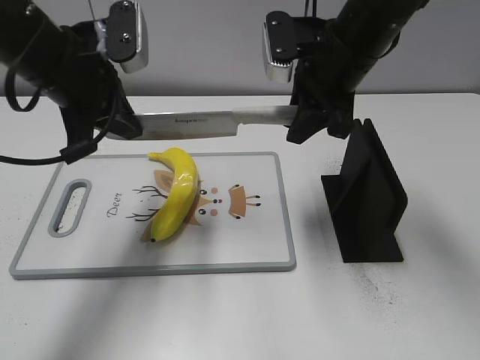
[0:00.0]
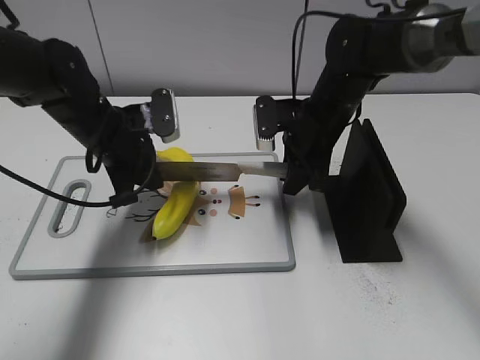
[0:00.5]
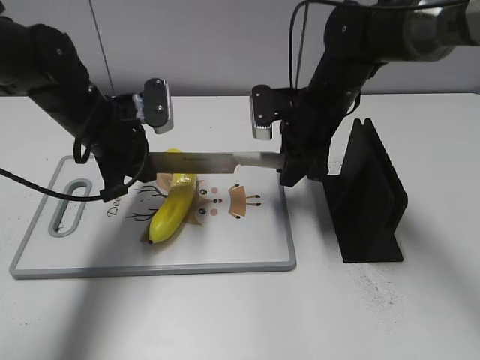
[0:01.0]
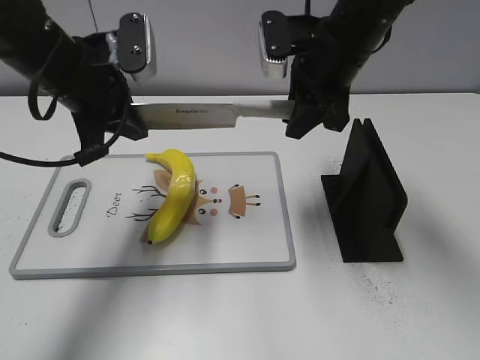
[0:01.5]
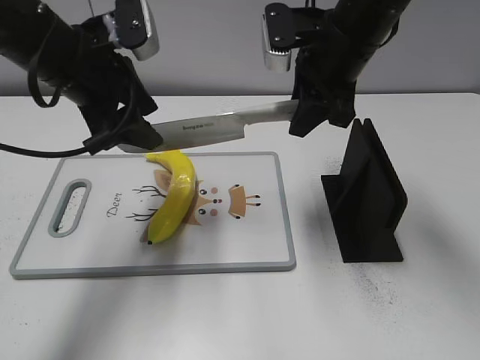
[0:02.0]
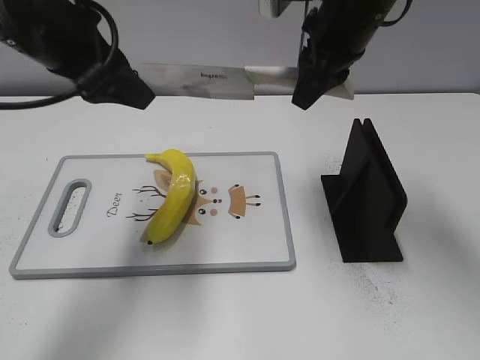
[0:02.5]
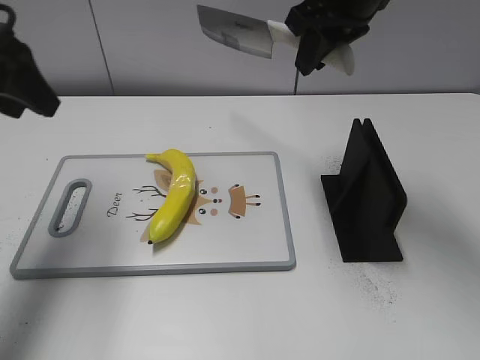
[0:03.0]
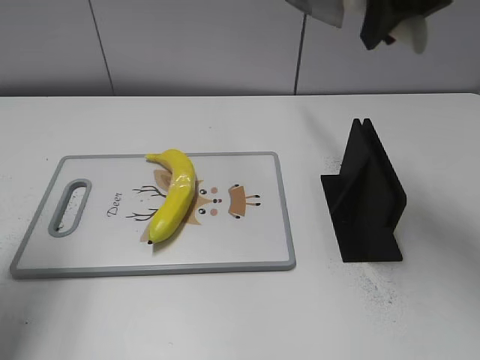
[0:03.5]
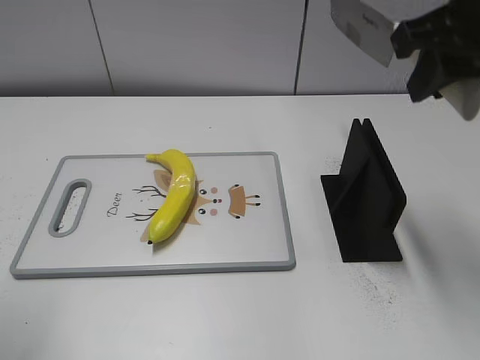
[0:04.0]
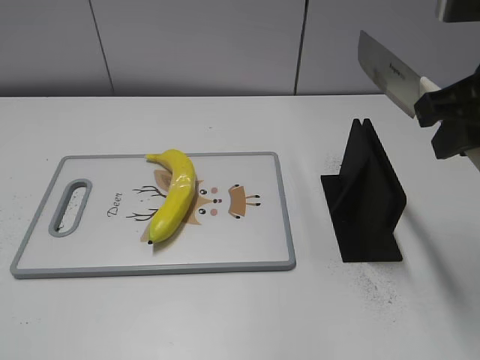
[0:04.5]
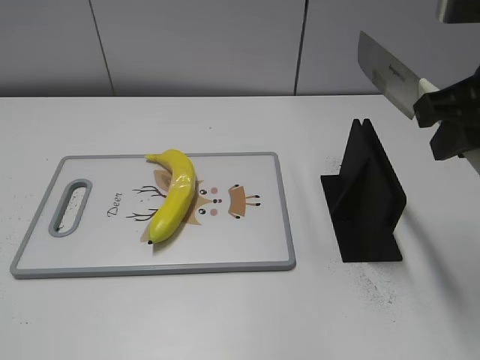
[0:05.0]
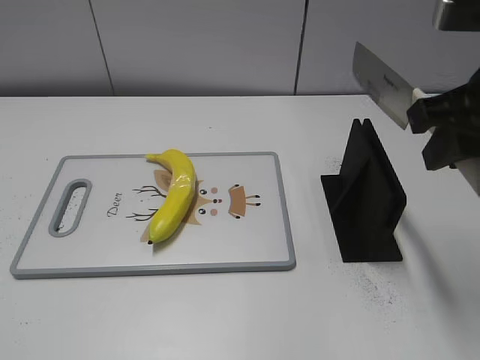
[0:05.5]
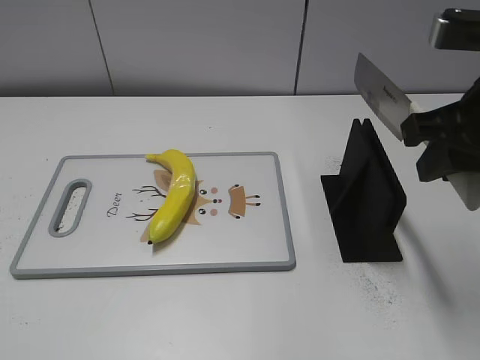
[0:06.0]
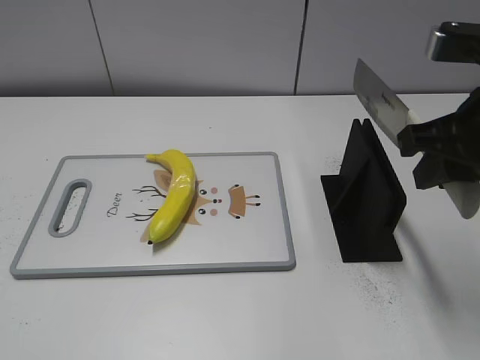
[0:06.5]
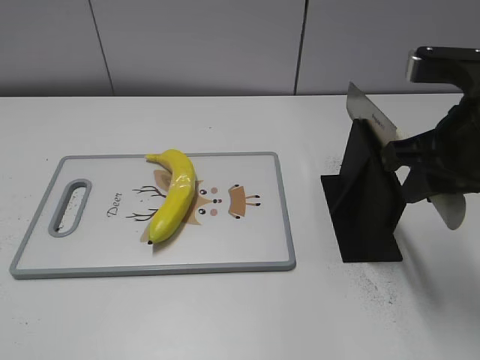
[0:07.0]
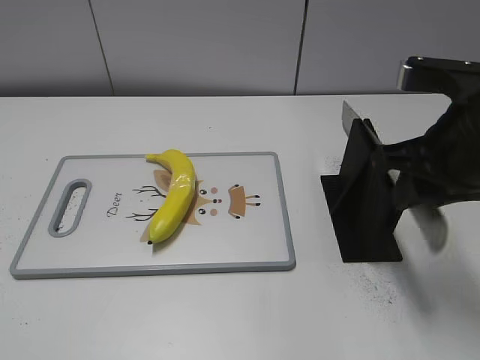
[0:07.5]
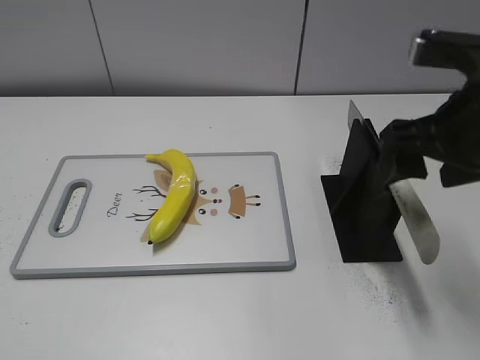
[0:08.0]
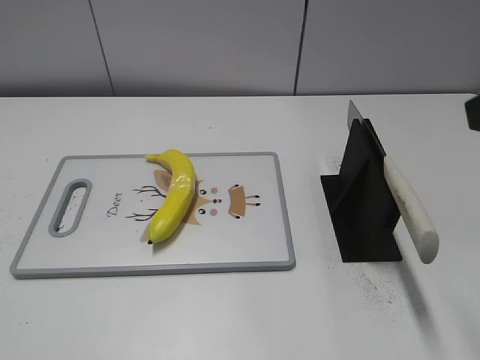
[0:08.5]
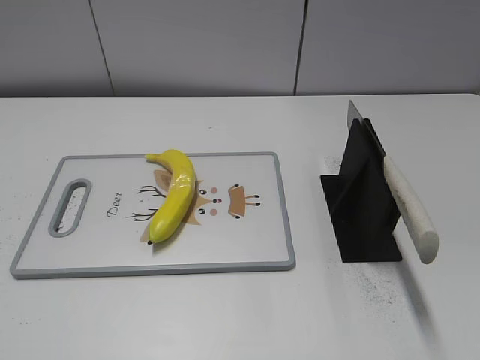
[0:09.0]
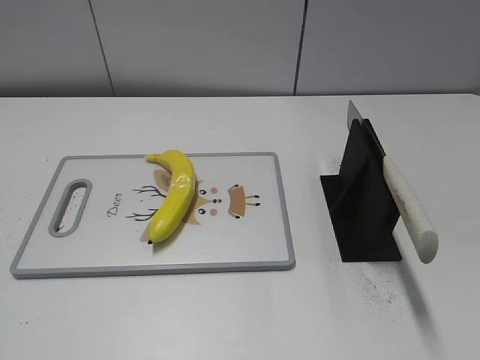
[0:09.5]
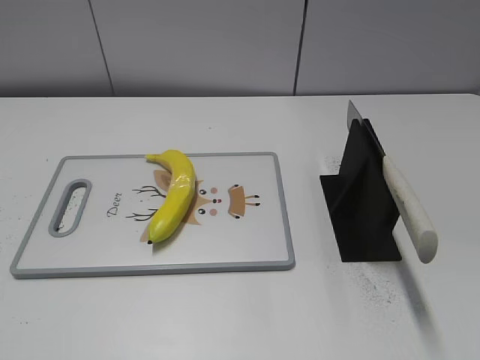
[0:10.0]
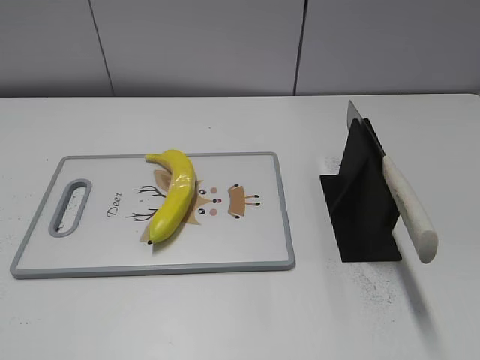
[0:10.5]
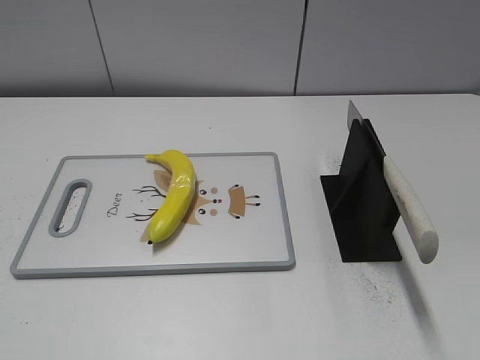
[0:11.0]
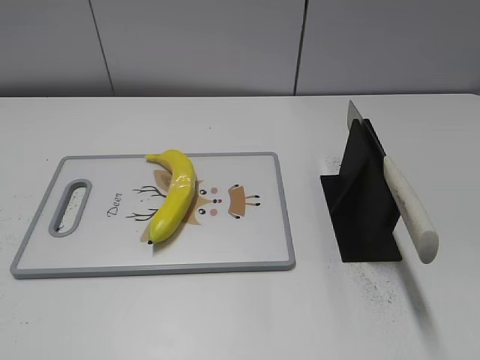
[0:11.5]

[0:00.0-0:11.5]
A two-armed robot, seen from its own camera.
Task of the whole recording: cut plastic banana.
Step, 0:00.0 to 0:02.0: Lift the knife with your right hand.
Step, 0:02.5 to 0:03.0: Cut the banana with your right hand.
Step, 0:03.5 to 0:04.0: Lift the knife with your right hand.
Step, 0:04.5 to 0:11.5: Place the knife on the storage rack with your right hand.
0:00.0 to 0:02.0: The right gripper travels downward and back again, approximately 10 cm each way. Meanwhile the left gripper moves about 10 cm downward and comes back, and opens.
0:02.0 to 0:04.0: The right gripper is displaced backward, upward and to the right by some 15 cm, while the left gripper moves backward and to the left, some 25 cm.
0:04.0 to 0:06.0: The right gripper heads downward, covering some 5 cm.
0:06.0 to 0:07.5: The grippers make only small movements.
0:07.5 to 0:09.5: The right gripper goes approximately 25 cm backward and to the right, and opens.
